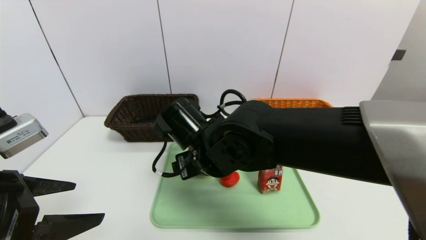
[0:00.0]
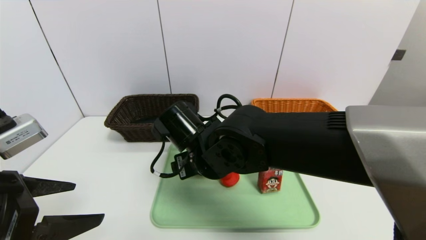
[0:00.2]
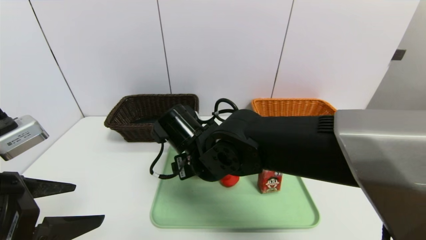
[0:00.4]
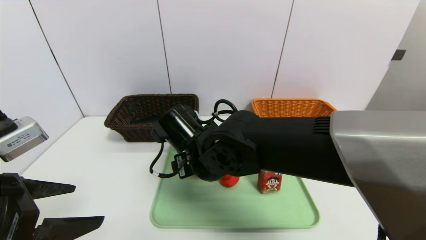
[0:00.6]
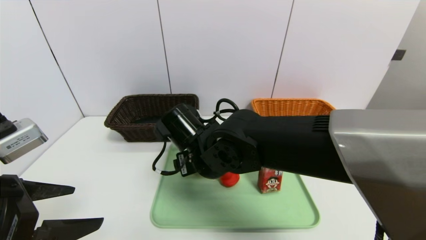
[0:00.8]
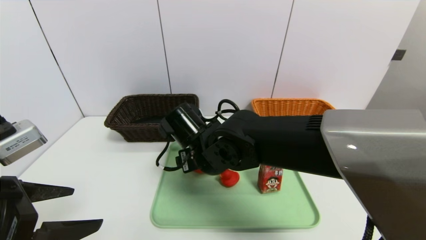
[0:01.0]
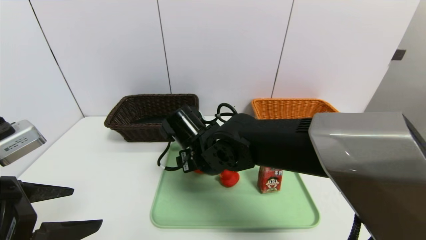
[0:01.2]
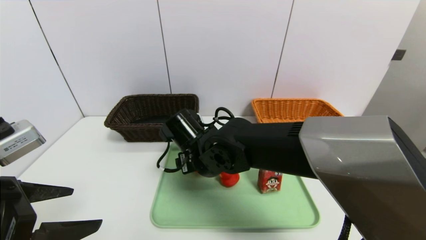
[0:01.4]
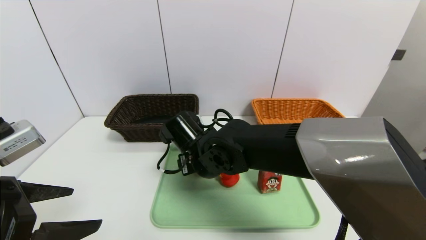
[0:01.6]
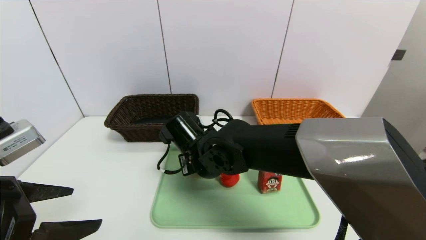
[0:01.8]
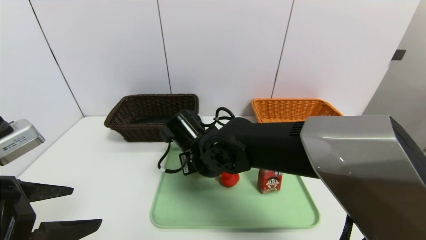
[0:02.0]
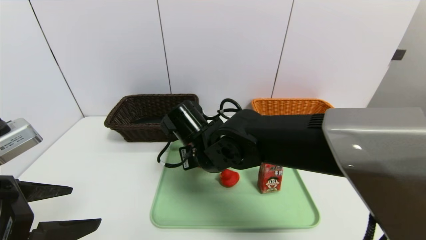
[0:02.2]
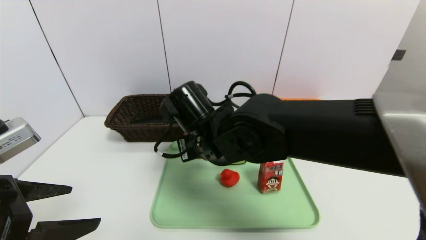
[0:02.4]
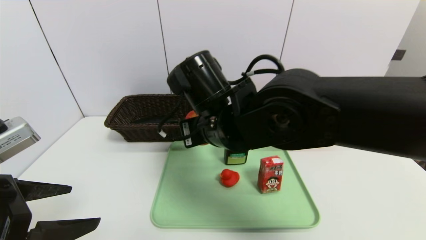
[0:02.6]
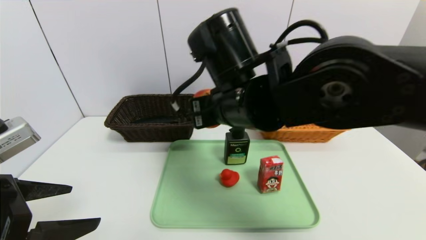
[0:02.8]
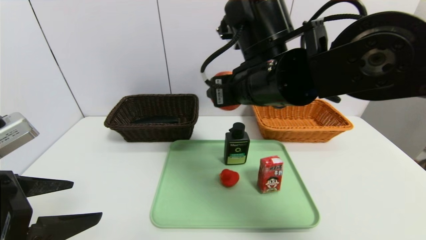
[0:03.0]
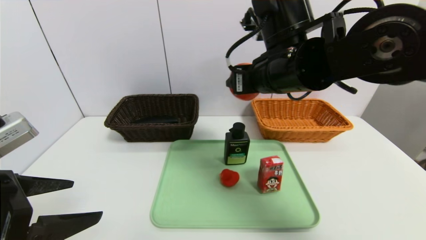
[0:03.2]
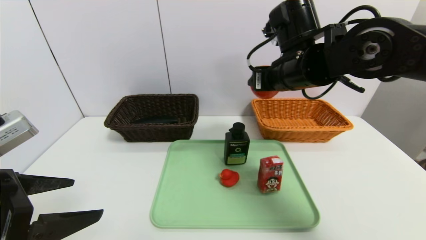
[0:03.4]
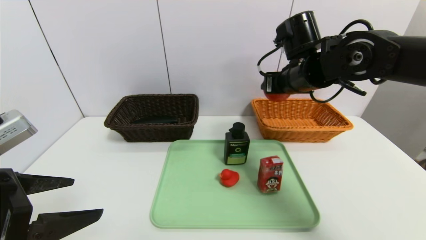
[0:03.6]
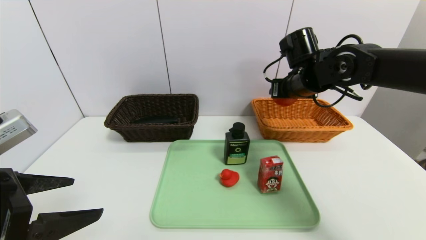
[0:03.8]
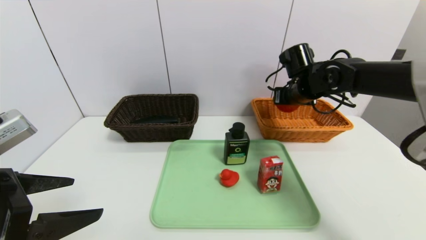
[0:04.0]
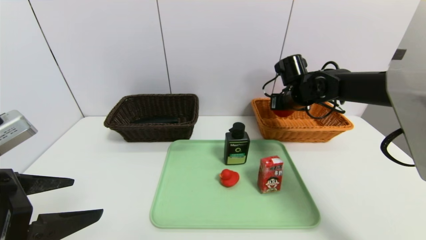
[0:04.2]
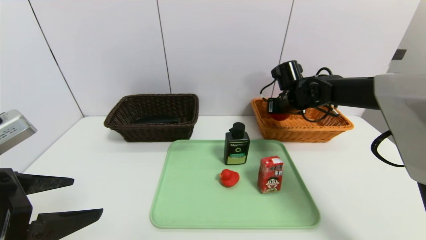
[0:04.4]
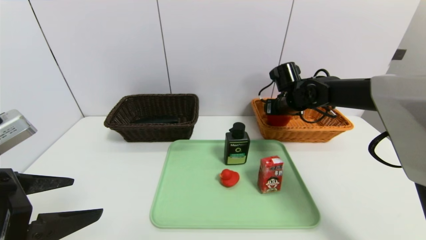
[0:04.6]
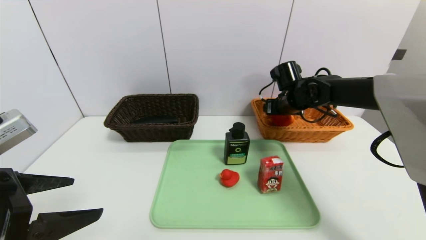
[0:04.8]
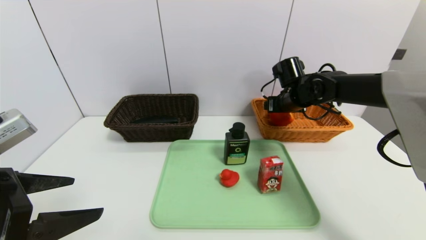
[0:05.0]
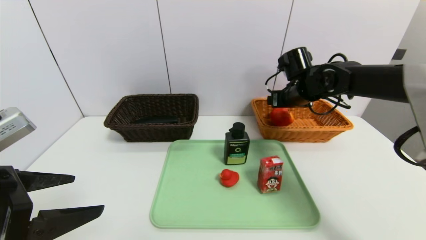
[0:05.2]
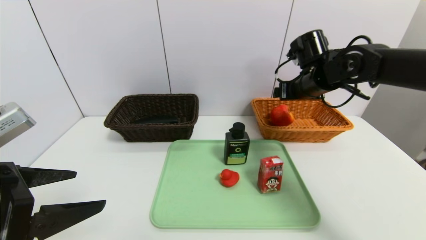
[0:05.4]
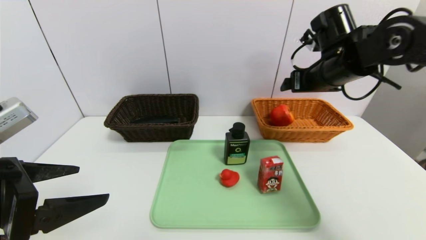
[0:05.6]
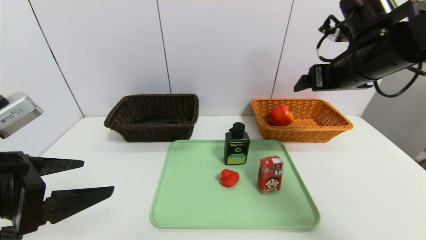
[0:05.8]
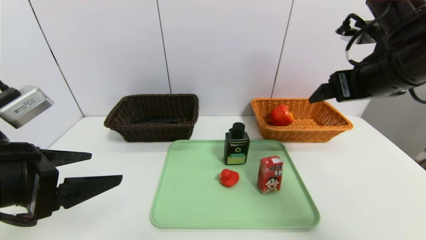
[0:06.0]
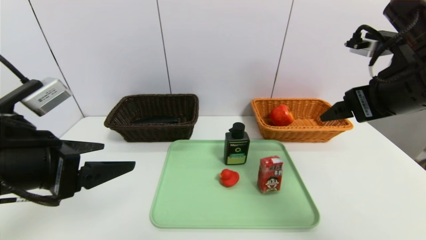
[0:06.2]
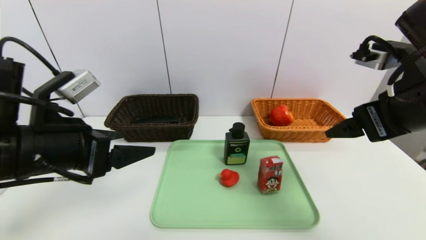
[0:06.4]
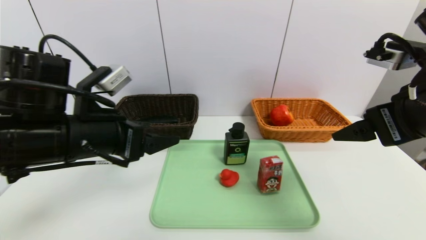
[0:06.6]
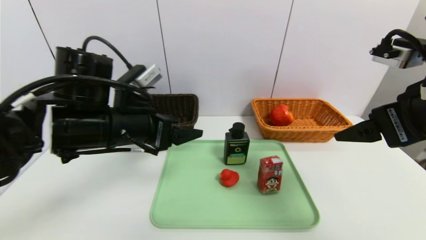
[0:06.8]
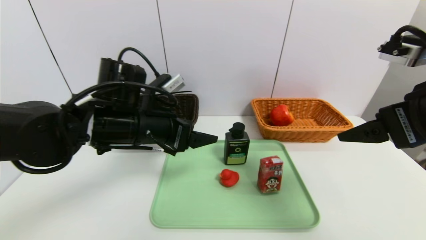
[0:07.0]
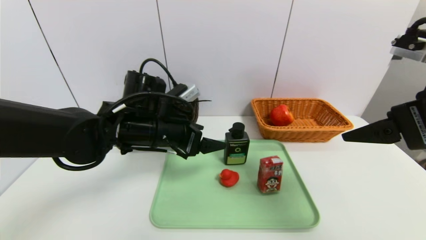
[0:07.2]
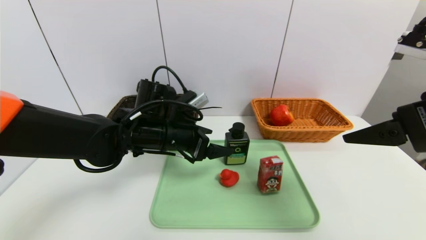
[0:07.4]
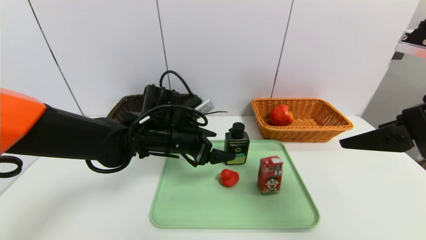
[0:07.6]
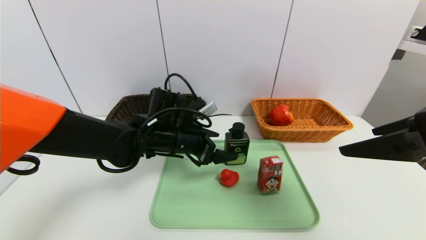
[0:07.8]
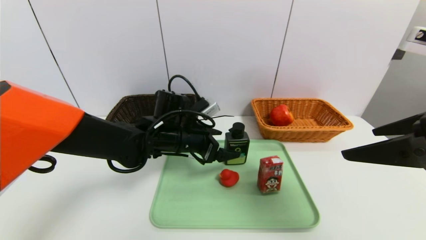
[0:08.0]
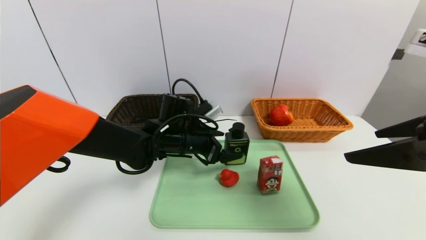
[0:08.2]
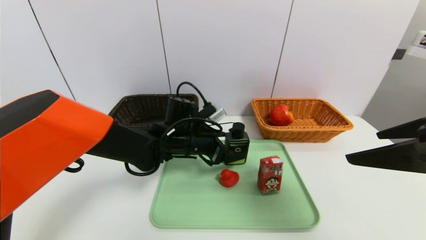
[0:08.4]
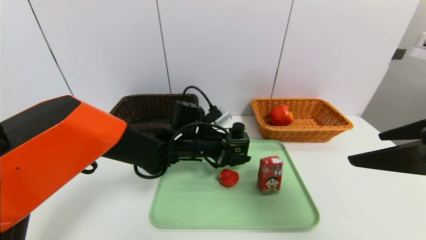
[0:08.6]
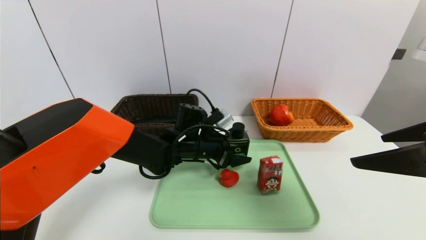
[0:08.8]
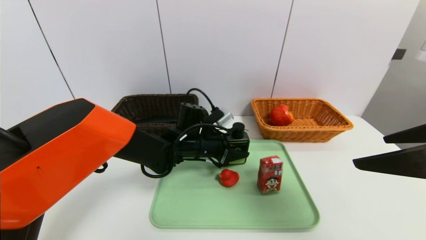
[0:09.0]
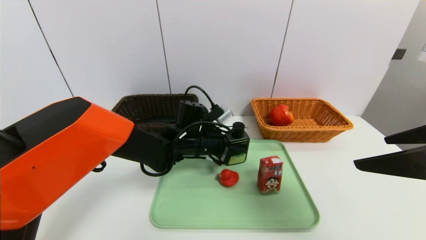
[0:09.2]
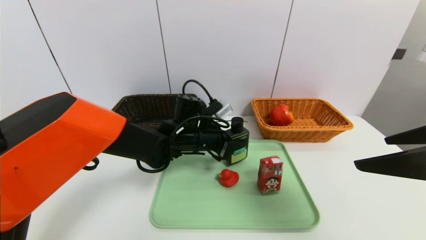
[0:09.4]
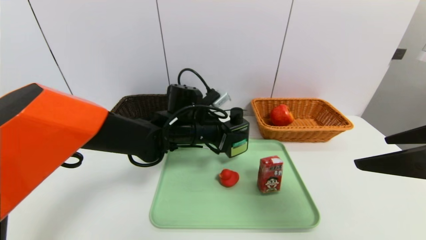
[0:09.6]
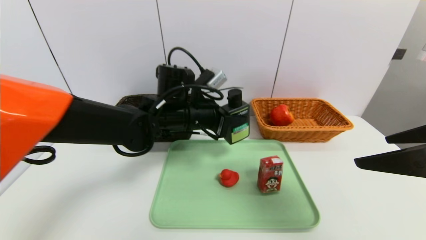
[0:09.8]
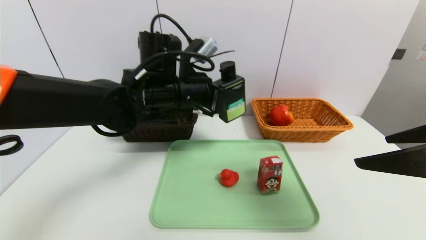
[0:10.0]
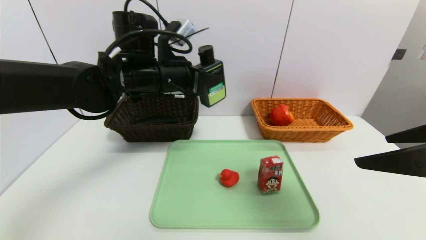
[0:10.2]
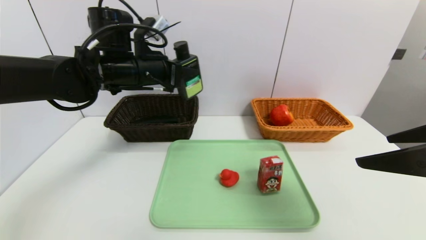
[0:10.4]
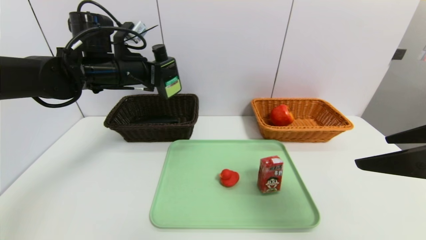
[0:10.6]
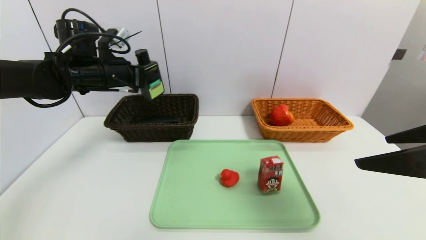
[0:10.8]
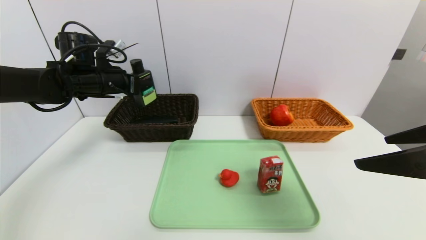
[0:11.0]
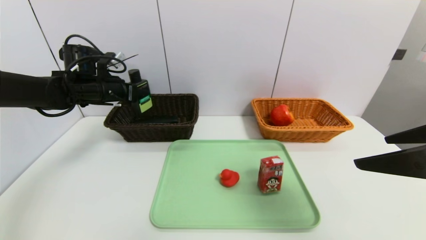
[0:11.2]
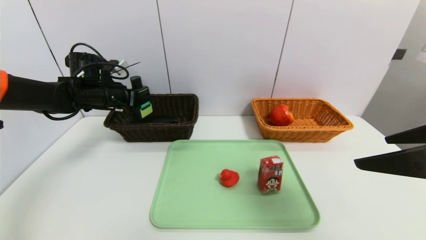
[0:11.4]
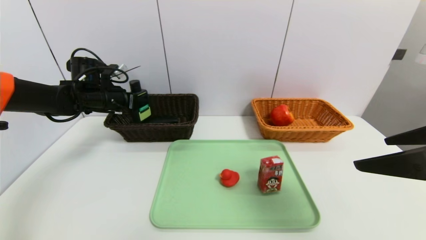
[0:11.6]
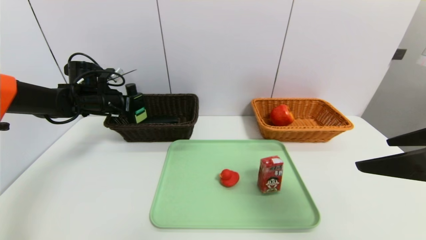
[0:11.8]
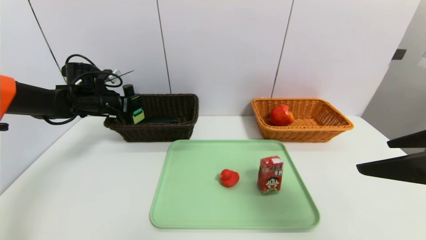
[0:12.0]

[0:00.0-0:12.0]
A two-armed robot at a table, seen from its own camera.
Task of the whole recording: place the food in the right basket with the right gripper, and place the non food items in the left basket with the left gripper.
Step, 0:00.0 to 0:05.0: Grasp the apple and put it in the right basket.
0:00.0 to 0:01.6: The right gripper shifts by roughly 5 cm.
0:01.6 to 0:03.0: The right gripper is displaced upward and to the right by some 20 cm.
0:03.0 to 0:04.4: The right gripper goes about 25 cm forward, to the right and downward.
0:04.4 to 0:06.0: The right gripper shifts some 25 cm backward and upward.
0:06.0 to 0:07.6: The right gripper goes approximately 10 cm backward, while the left gripper heads forward, to the right and downward, covering about 25 cm.
0:07.6 to 0:09.0: The left gripper is displaced downward and to the right by approximately 10 cm, and closes up.
0:09.0 to 0:10.4: The left gripper travels upward and to the left by some 20 cm, and closes.
0:10.4 to 0:12.0: The left gripper goes about 20 cm to the left, downward and forward.

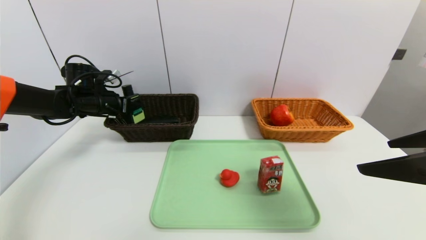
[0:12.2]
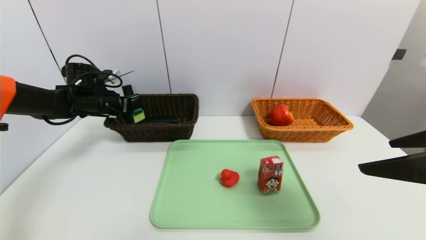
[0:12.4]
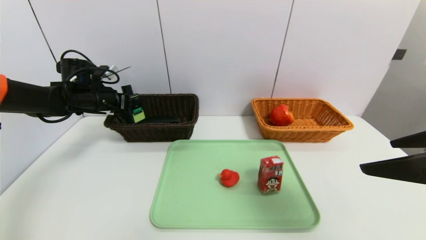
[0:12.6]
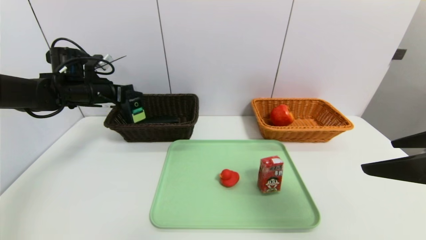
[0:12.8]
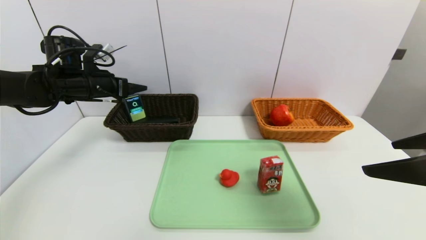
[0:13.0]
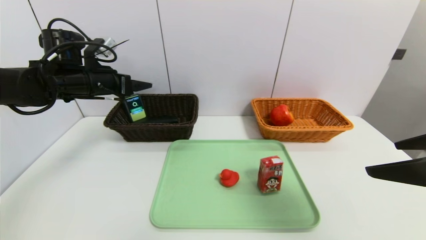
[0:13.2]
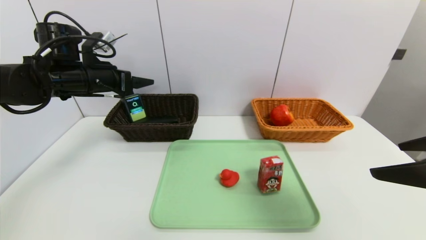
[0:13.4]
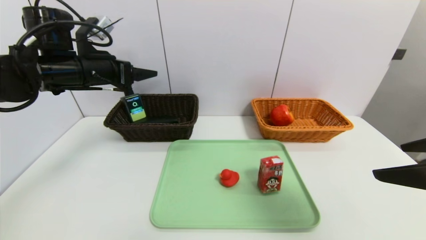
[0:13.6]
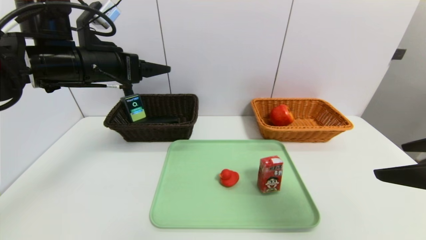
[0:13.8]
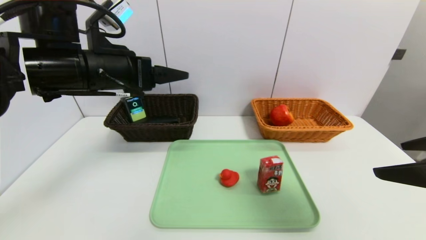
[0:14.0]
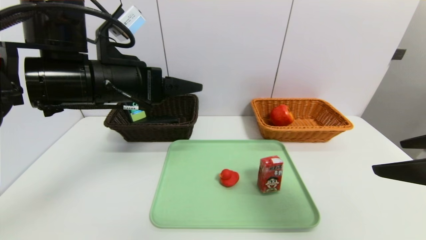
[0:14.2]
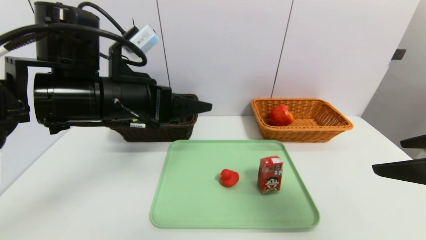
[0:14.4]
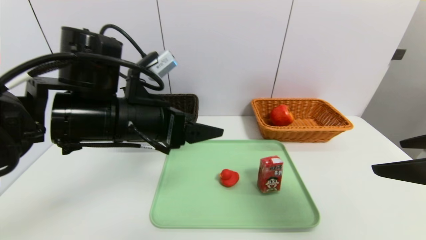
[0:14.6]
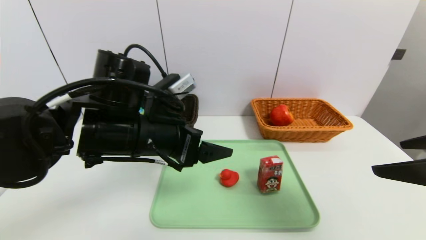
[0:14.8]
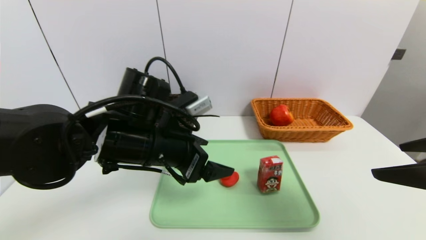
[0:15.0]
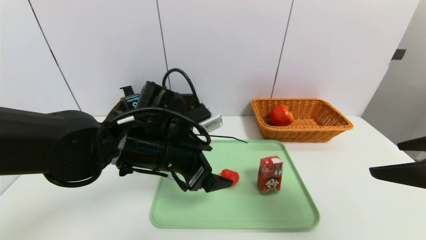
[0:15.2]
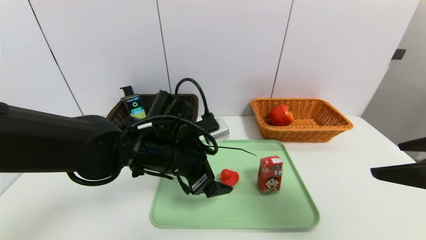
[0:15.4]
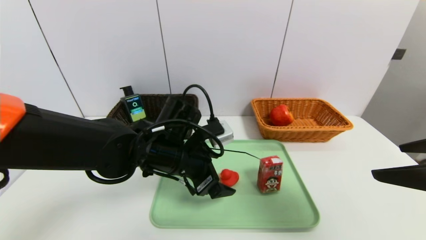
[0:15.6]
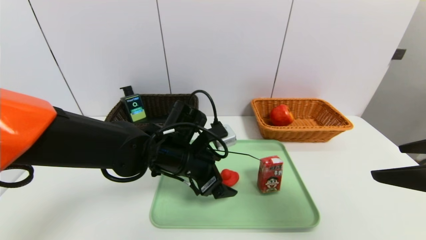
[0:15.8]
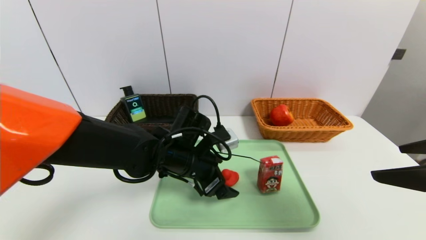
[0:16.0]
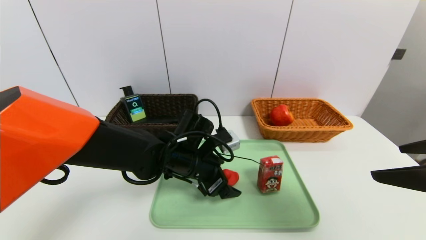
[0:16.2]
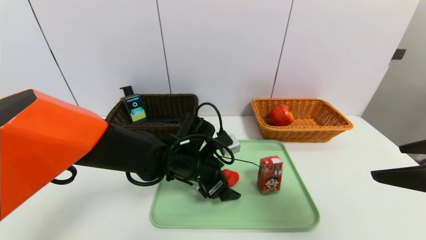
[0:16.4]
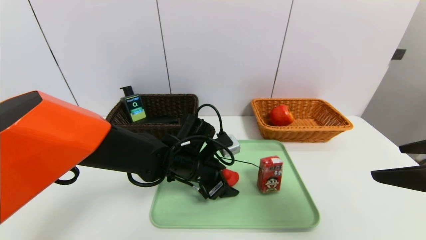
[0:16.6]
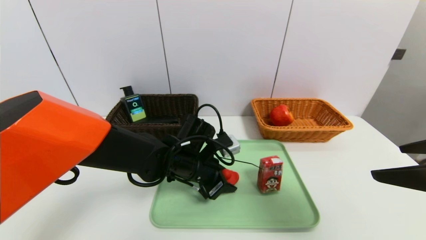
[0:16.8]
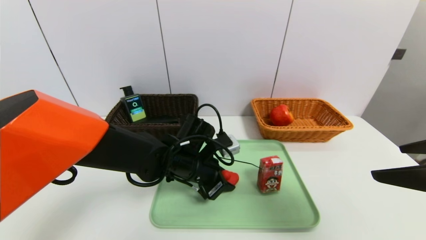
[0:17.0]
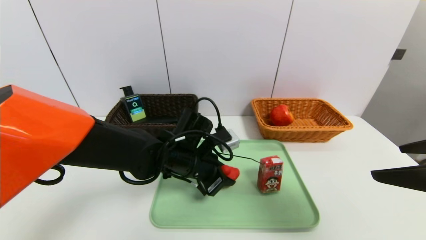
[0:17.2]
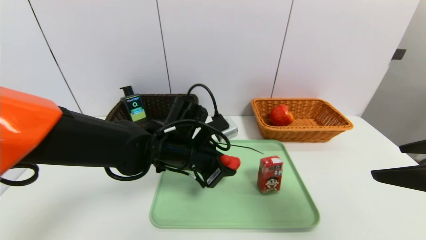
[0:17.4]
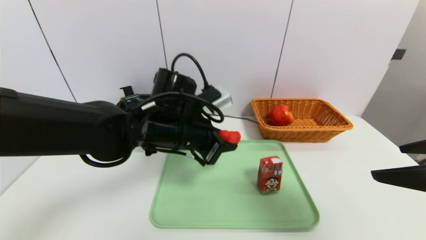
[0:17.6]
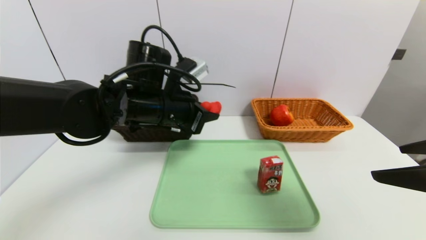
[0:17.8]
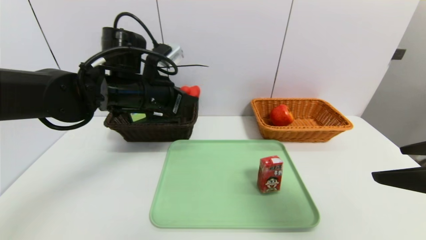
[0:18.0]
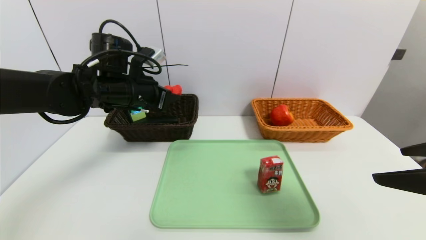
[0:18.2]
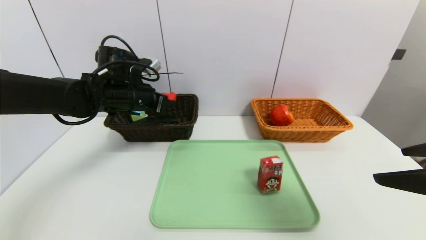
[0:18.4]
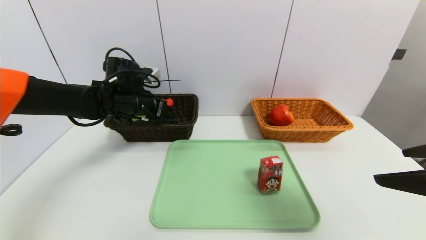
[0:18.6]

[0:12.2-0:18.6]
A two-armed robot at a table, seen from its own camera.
Task of the whole recording: place the food in the right basket with the right gripper, and place the non food items in the left basket with the left gripper.
0:12.2 to 0:13.8: The left gripper is displaced upward, backward and to the right by about 20 cm, and opens up.
0:13.8 to 0:15.4: The left gripper shifts roughly 20 cm downward and to the right.
0:15.4 to 0:17.0: The left gripper shifts approximately 5 cm downward, and closes its fingers.
0:17.0 to 0:18.6: The left gripper is displaced to the left, forward and upward by some 20 cm.
